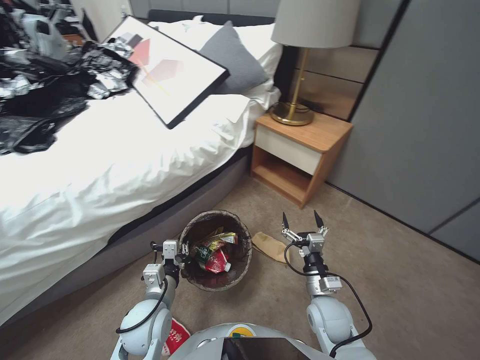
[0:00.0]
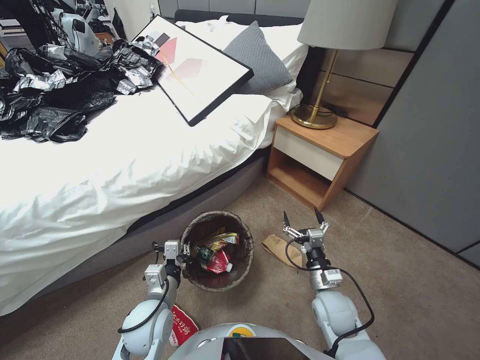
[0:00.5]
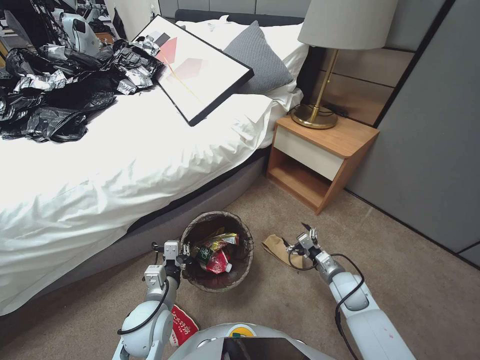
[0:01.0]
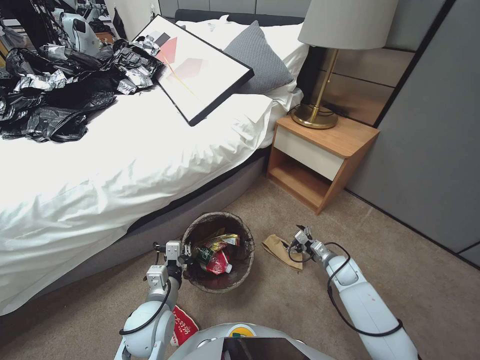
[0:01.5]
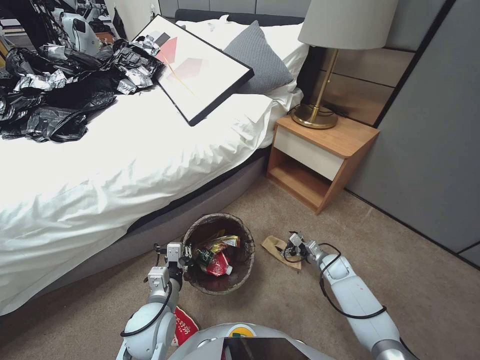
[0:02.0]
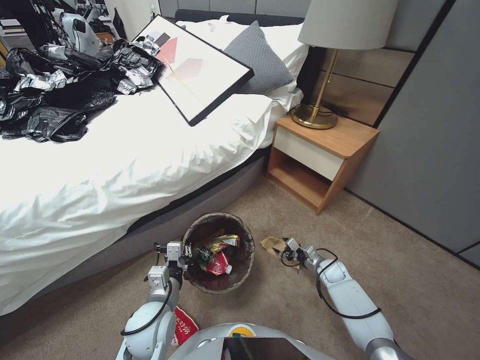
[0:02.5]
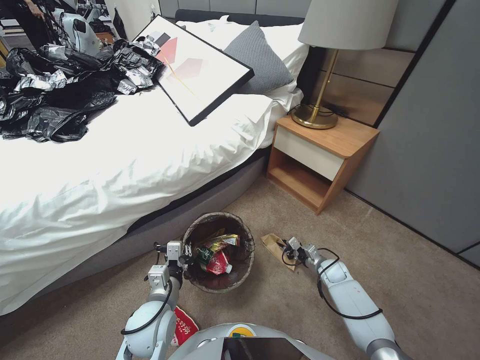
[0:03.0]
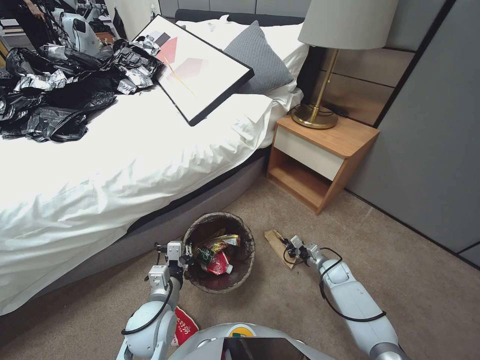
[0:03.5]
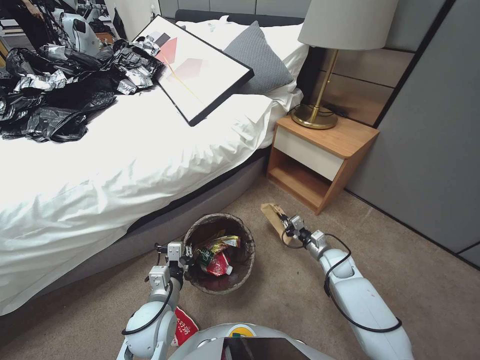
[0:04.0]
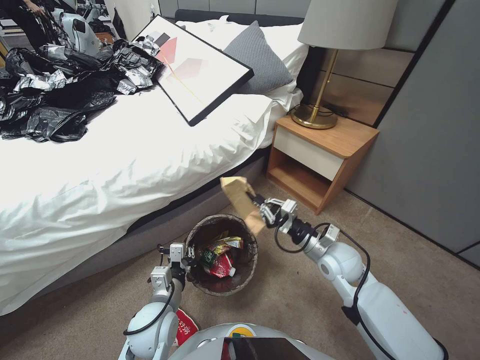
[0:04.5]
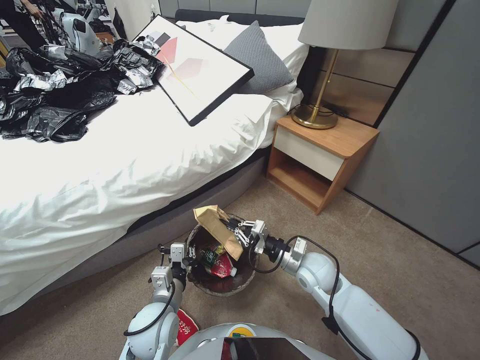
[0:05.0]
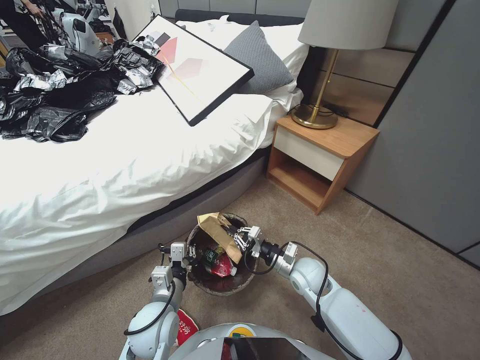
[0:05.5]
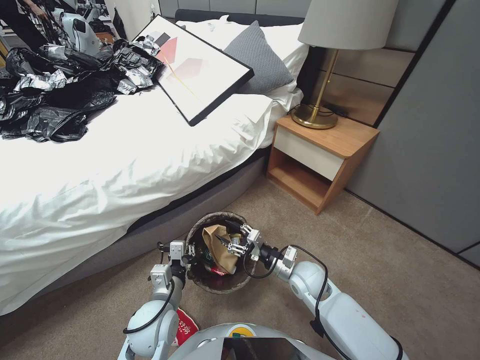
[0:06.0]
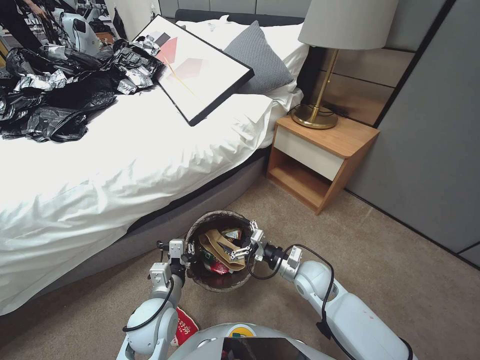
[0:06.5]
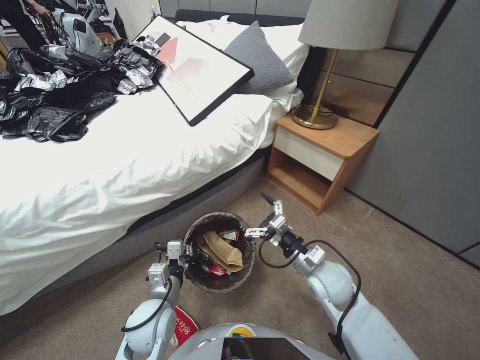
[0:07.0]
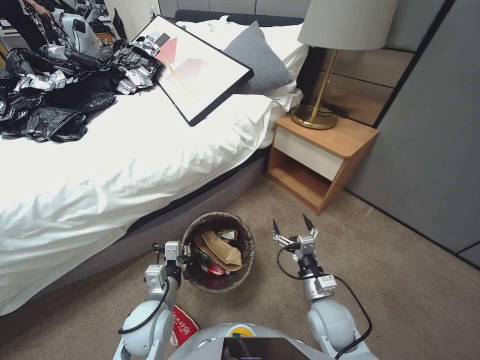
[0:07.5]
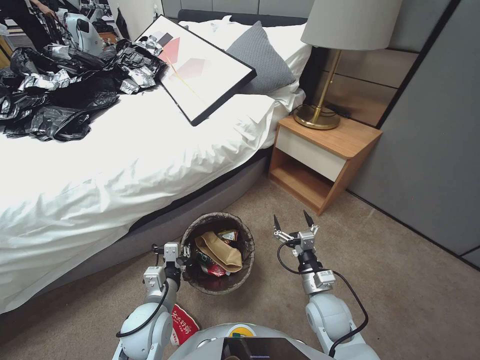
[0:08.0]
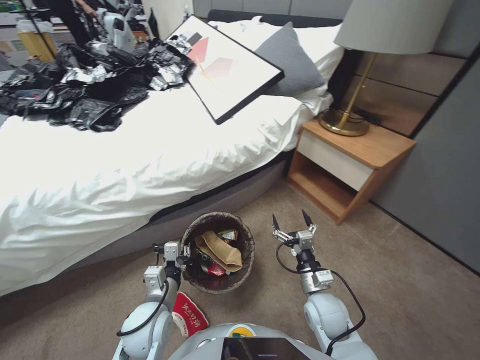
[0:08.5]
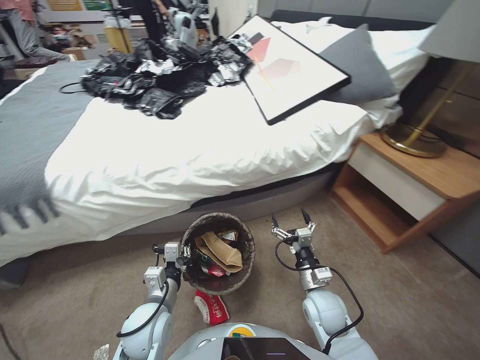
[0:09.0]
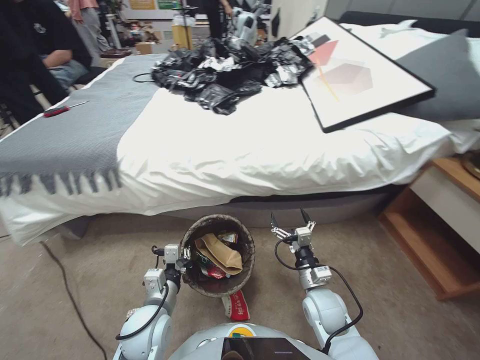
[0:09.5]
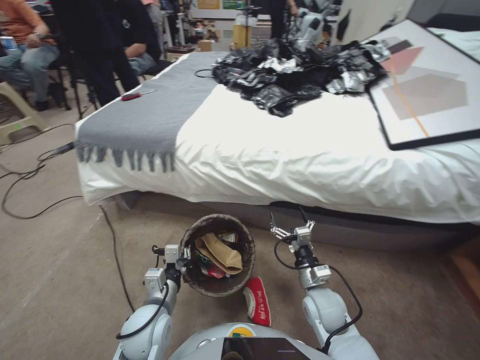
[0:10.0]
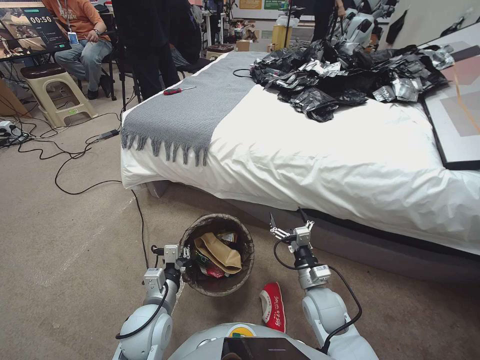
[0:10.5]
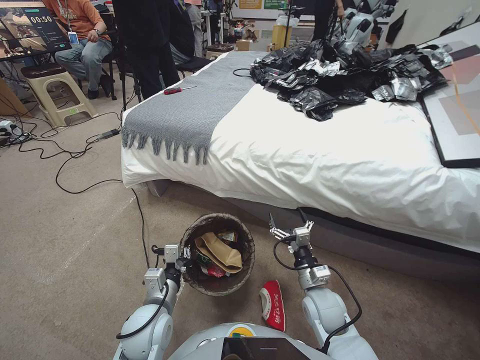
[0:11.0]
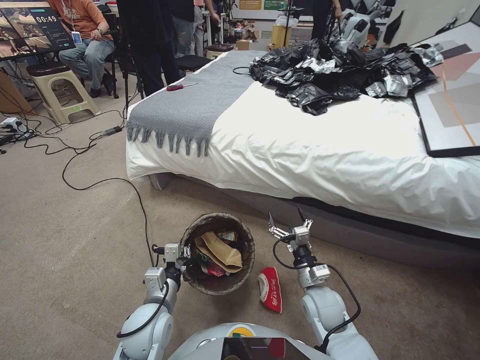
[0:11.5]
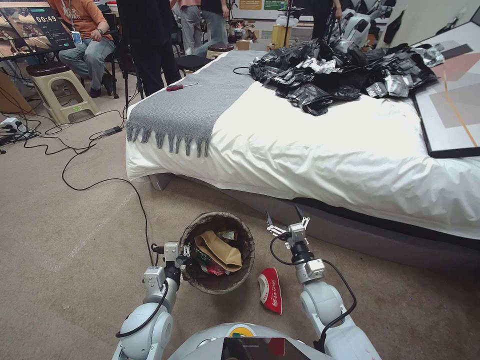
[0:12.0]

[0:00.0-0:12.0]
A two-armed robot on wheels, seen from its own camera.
Task of the whole recording: Pick up the trash bin, then pick up the garbage from the floor and place it into the trash bin.
0:00.0 to 0:02.0: The right gripper shifts roughly 25 cm forward, to the right and downward.
0:02.0 to 0:04.0: The right gripper closes up.
0:04.0 to 0:06.0: The right gripper travels to the left and upward by about 20 cm, and opens up.
0:06.0 to 0:08.0: The right gripper goes about 10 cm backward, and opens its fingers.

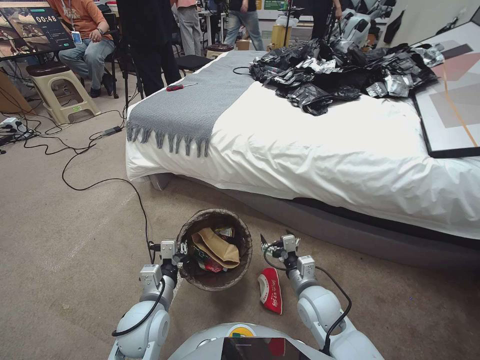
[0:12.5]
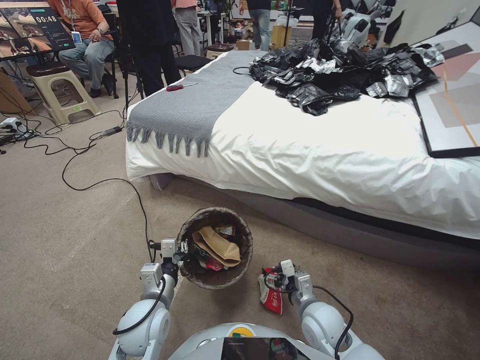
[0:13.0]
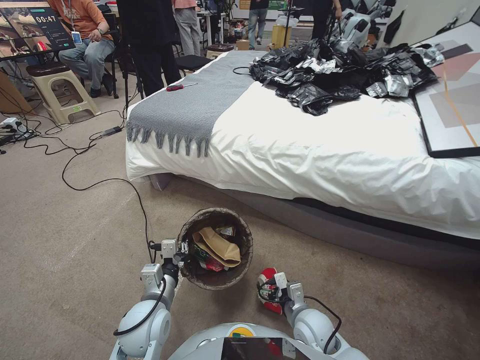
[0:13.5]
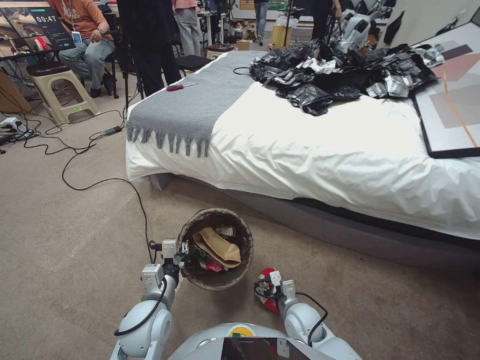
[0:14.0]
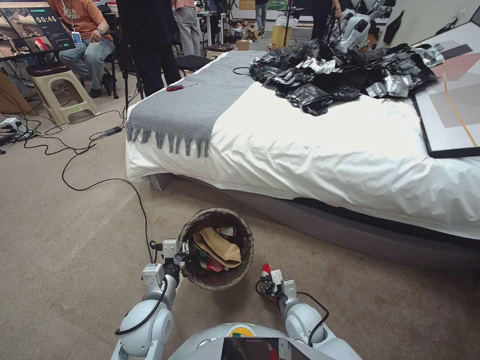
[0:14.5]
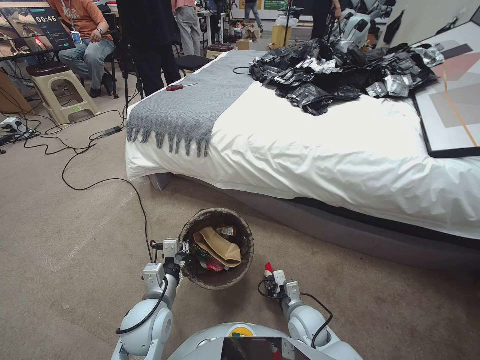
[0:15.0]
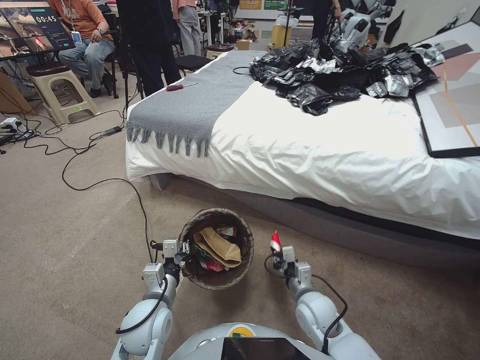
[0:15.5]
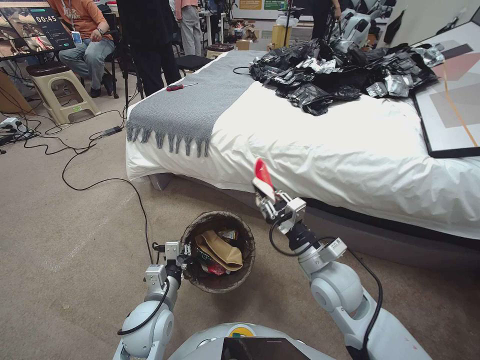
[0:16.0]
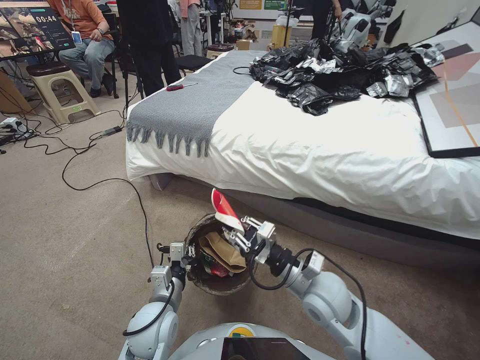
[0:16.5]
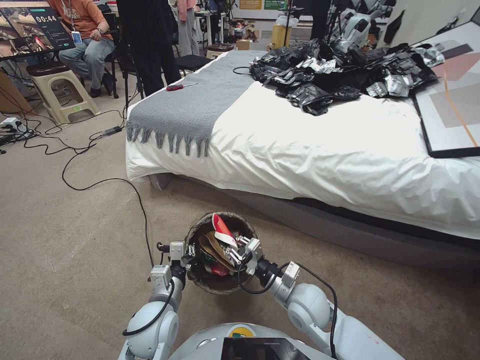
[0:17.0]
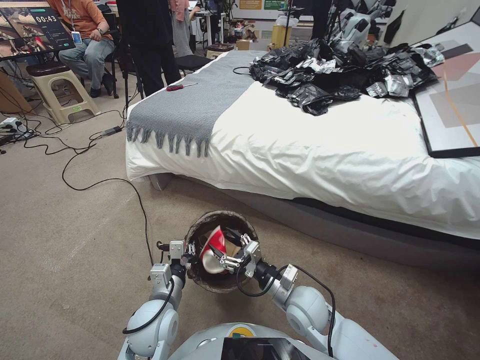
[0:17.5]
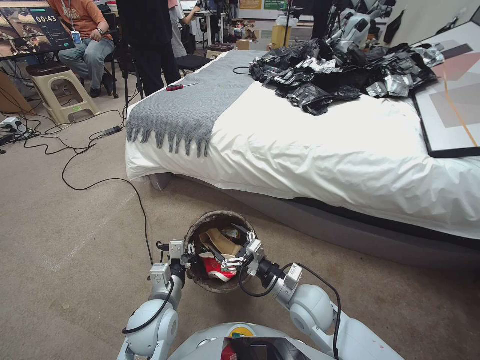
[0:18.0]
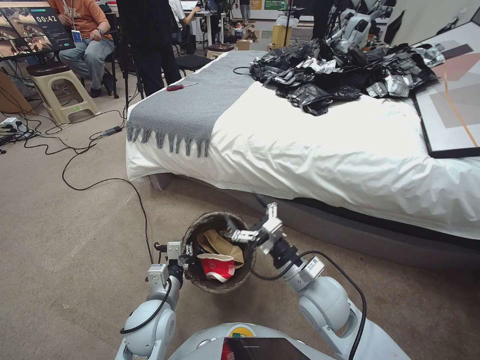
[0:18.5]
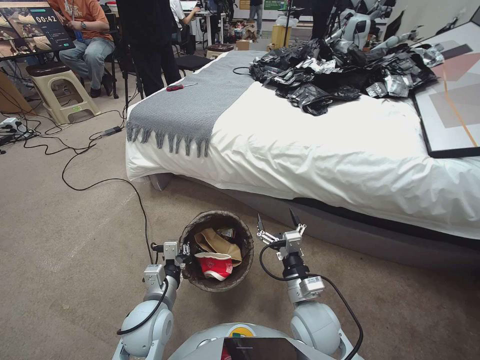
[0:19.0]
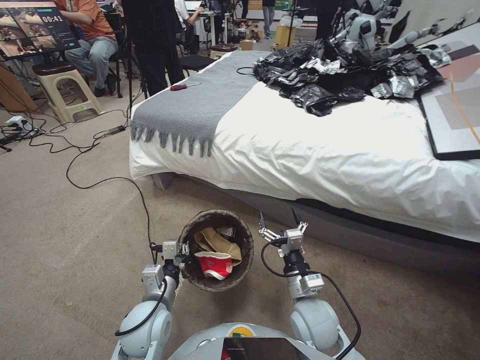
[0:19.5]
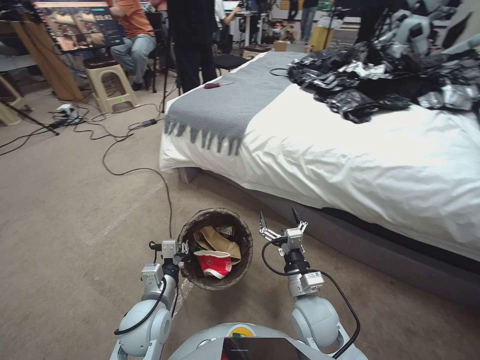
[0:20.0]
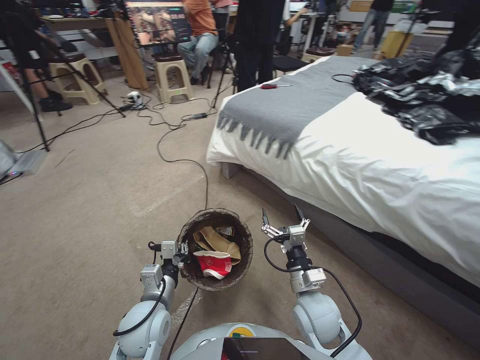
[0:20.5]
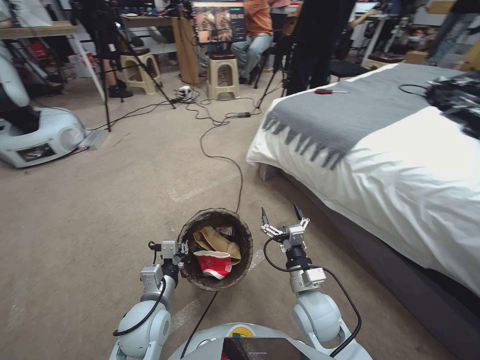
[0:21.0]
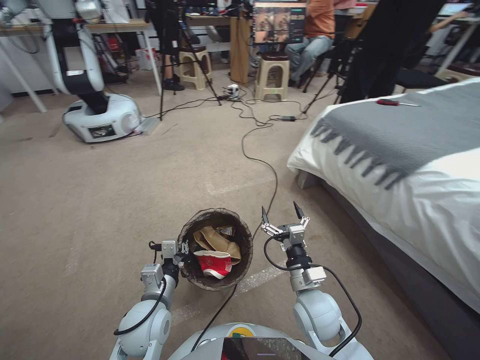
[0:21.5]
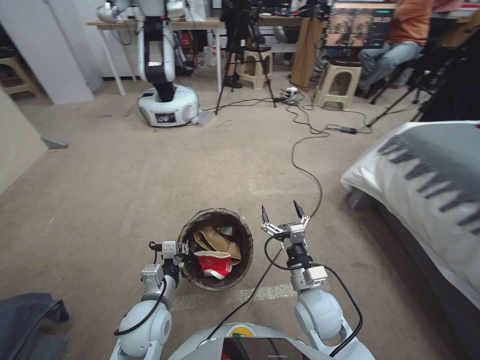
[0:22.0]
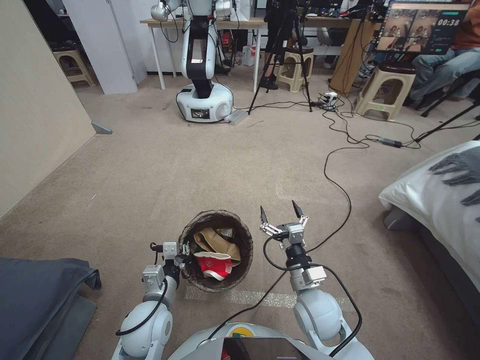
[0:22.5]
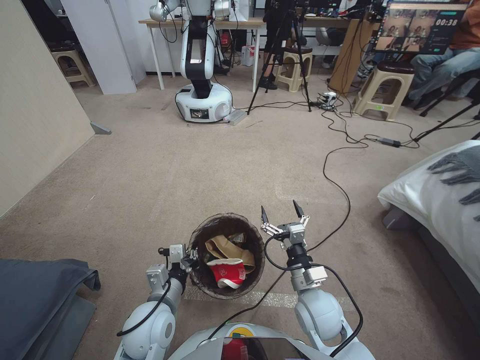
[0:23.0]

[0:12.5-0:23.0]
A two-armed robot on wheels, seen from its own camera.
Task of the whole recording: Pick up the trash bin, then pick up the garbage from the floor and place it into the trash bin.
0:12.5 to 0:14.5: The right gripper is displaced downward by some 10 cm, and closes its fingers.
0:14.5 to 0:16.5: The right gripper moves upward, roughly 20 cm.
0:16.5 to 0:19.0: The right gripper goes up and down, about 10 cm each way, reversing 2 times, and opens.

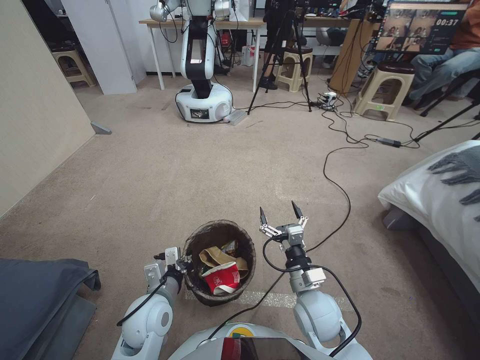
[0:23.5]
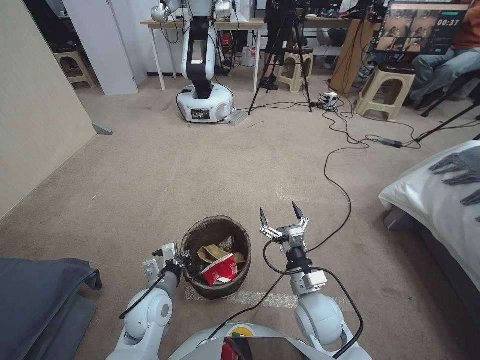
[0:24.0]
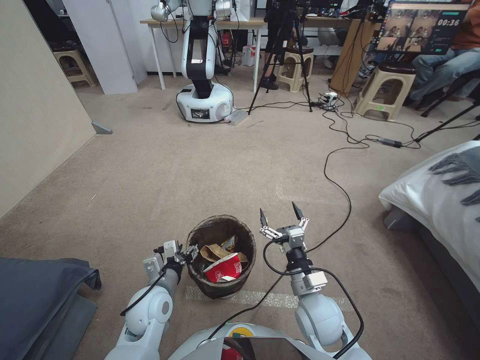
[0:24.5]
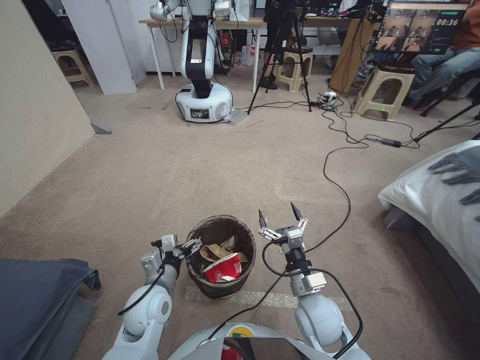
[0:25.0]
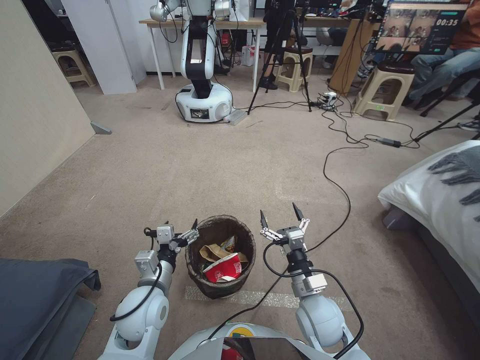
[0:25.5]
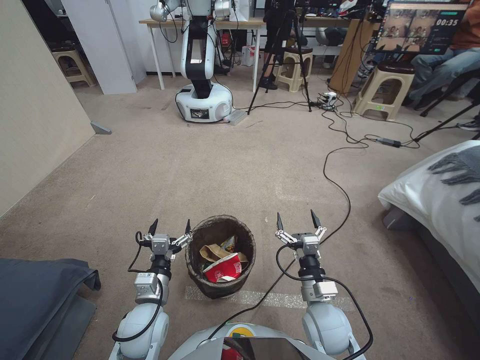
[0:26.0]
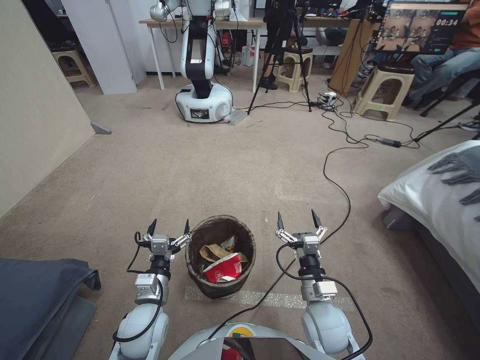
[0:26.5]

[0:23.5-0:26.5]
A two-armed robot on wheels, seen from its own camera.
Task of the whole recording: Pick up the trash bin, then pick up the garbage from the floor and place it into the trash bin.
0:23.5 to 0:25.0: The left gripper opens up.
